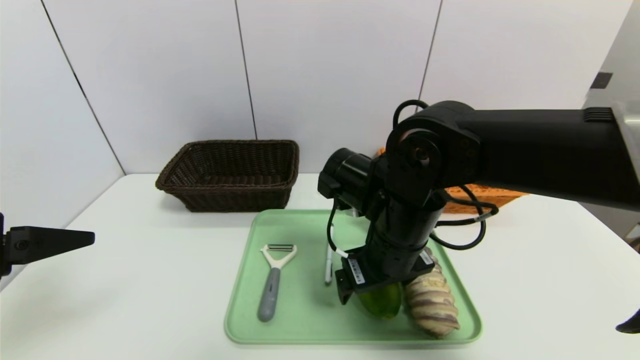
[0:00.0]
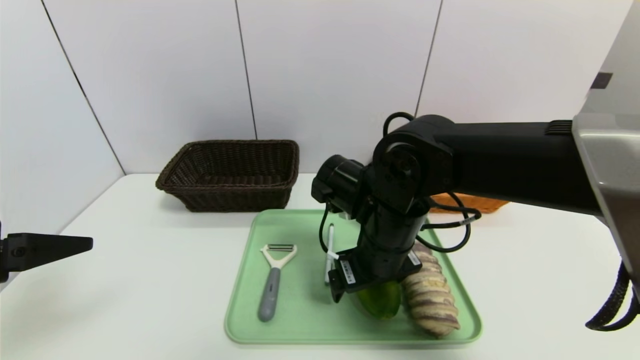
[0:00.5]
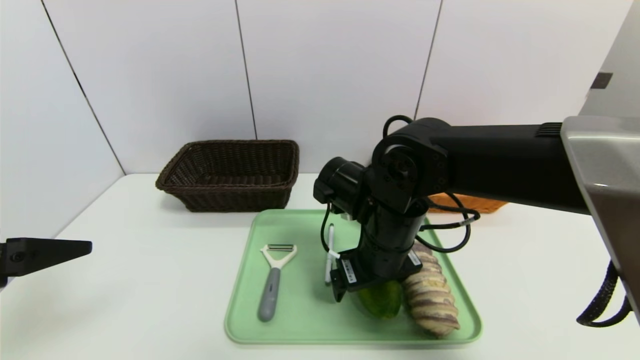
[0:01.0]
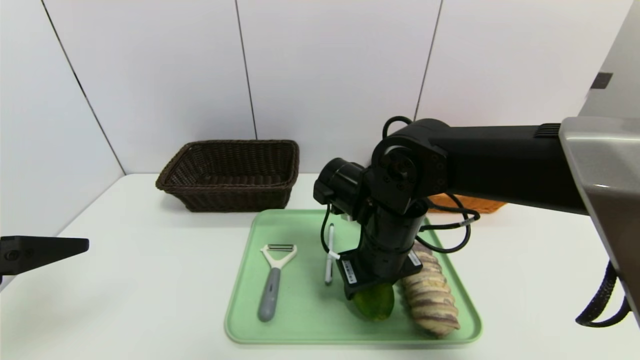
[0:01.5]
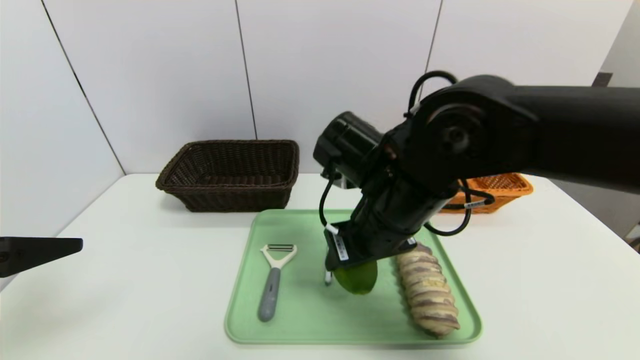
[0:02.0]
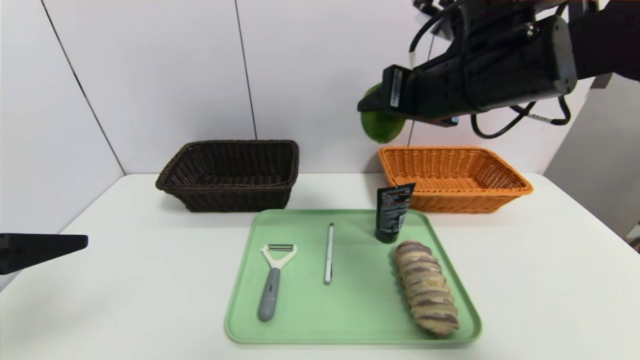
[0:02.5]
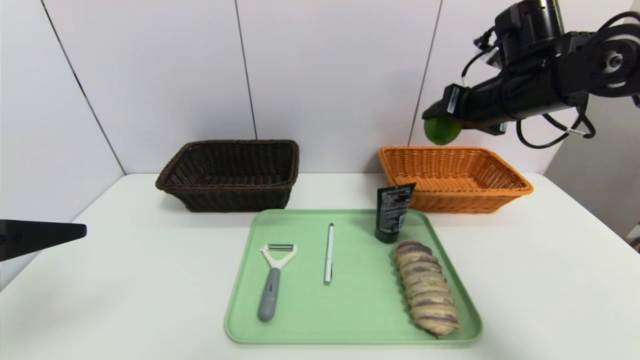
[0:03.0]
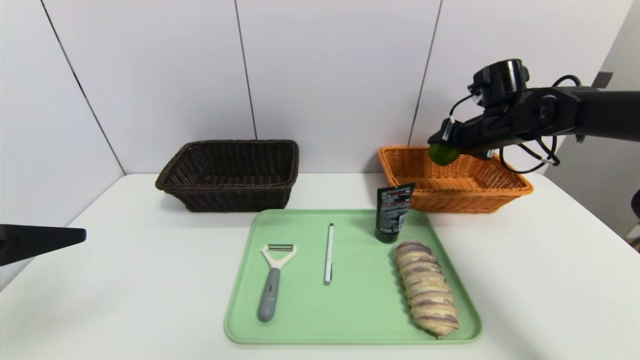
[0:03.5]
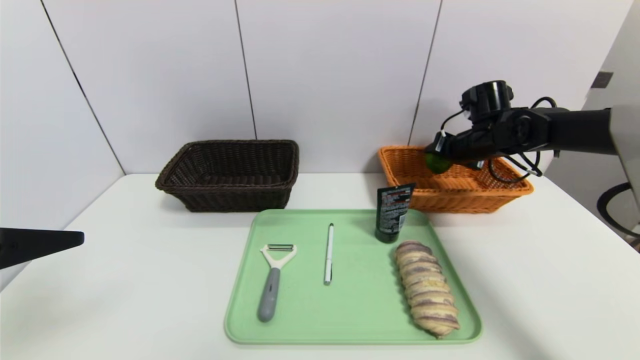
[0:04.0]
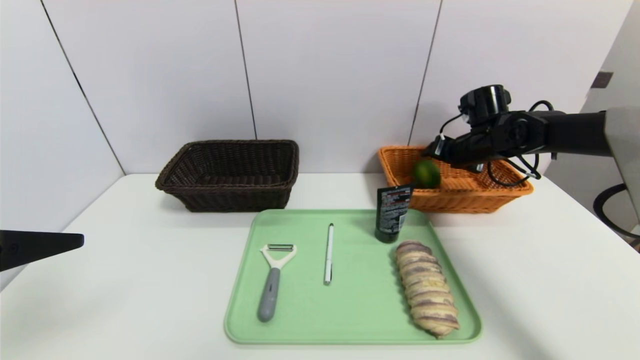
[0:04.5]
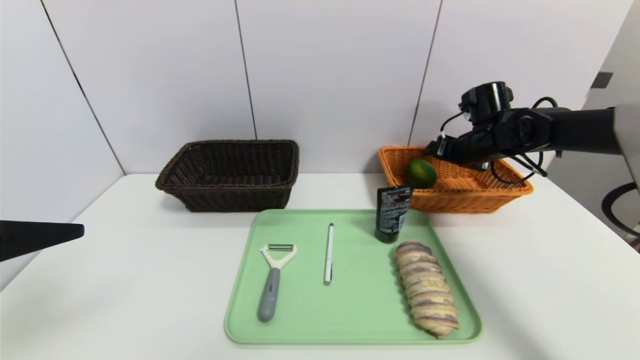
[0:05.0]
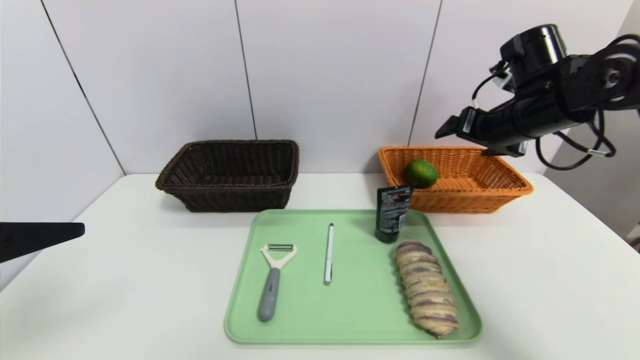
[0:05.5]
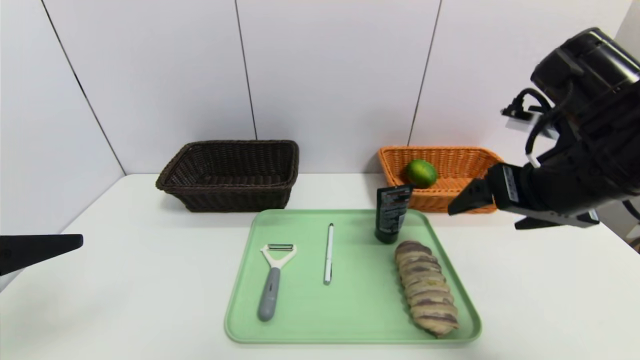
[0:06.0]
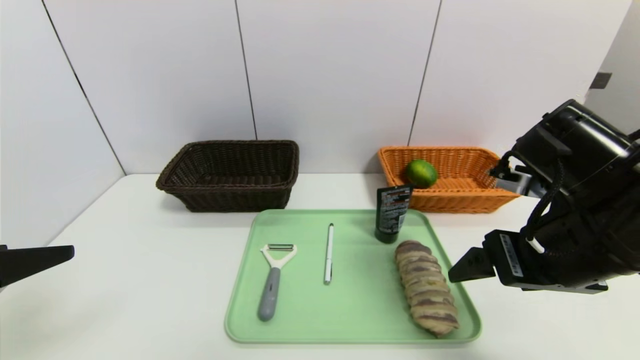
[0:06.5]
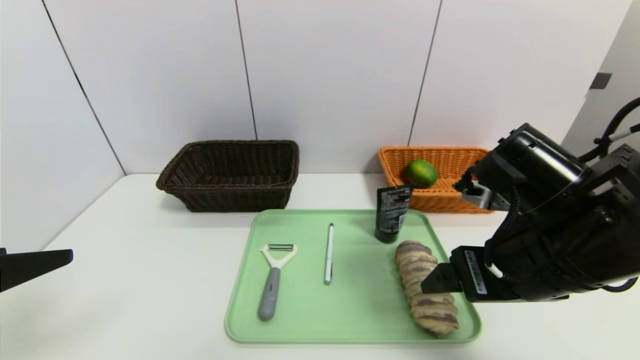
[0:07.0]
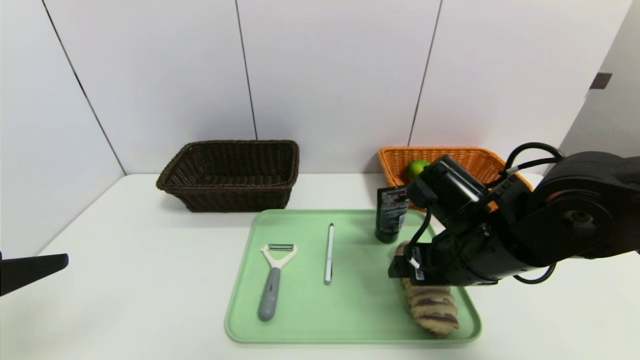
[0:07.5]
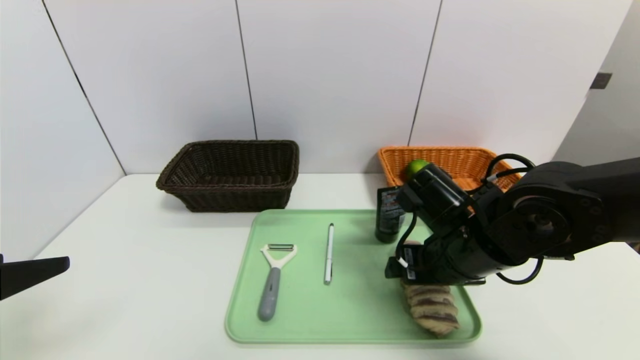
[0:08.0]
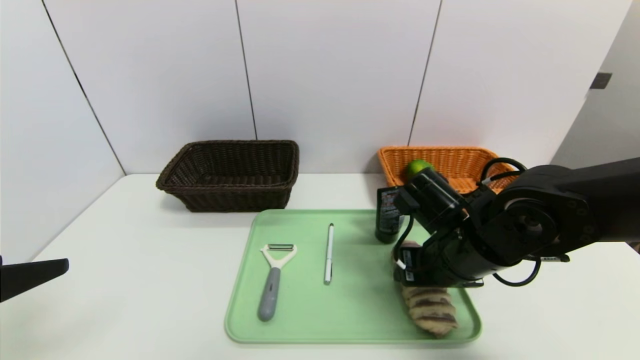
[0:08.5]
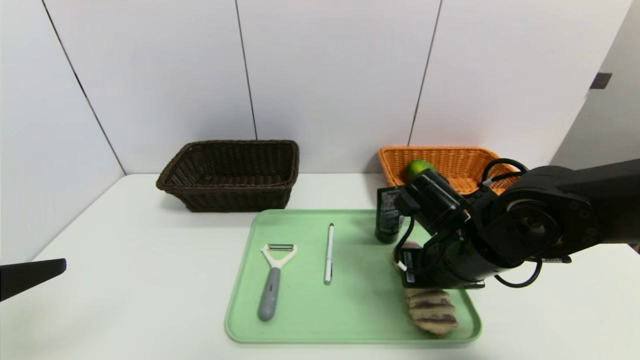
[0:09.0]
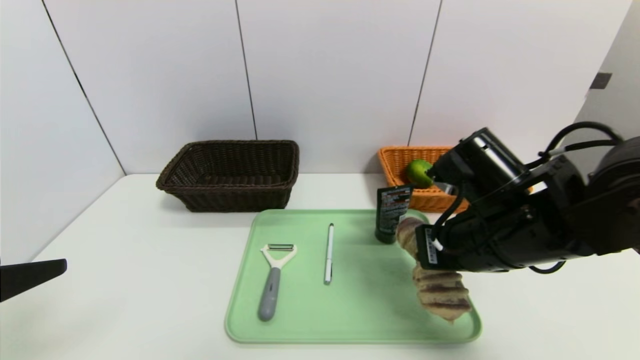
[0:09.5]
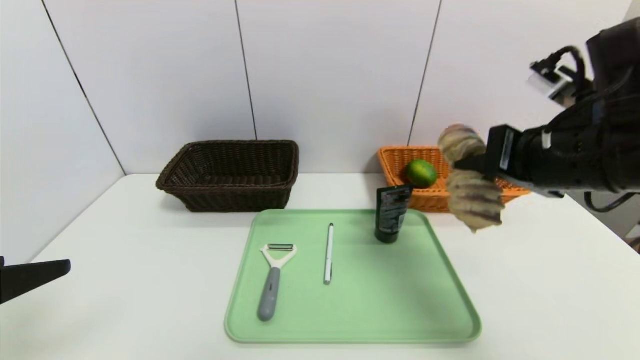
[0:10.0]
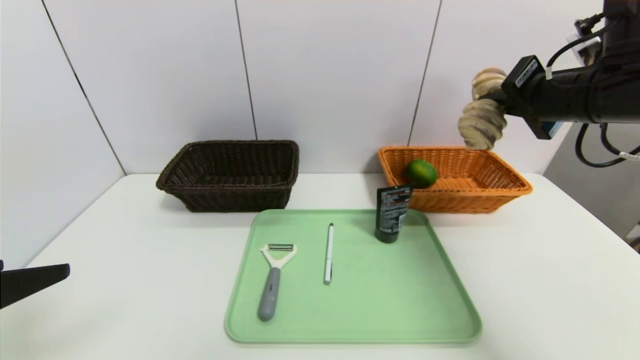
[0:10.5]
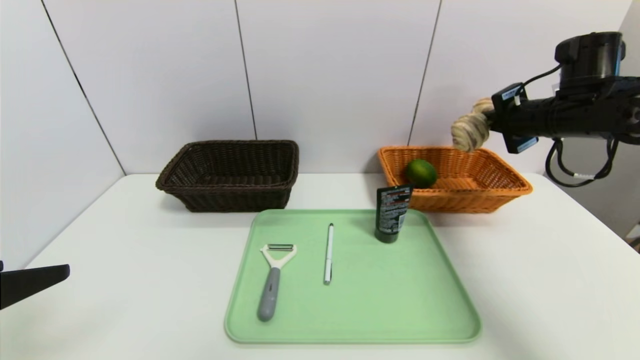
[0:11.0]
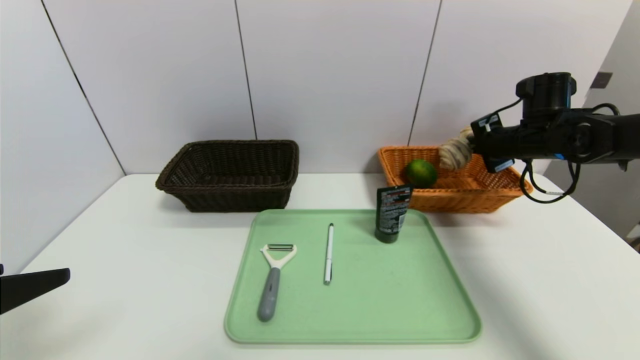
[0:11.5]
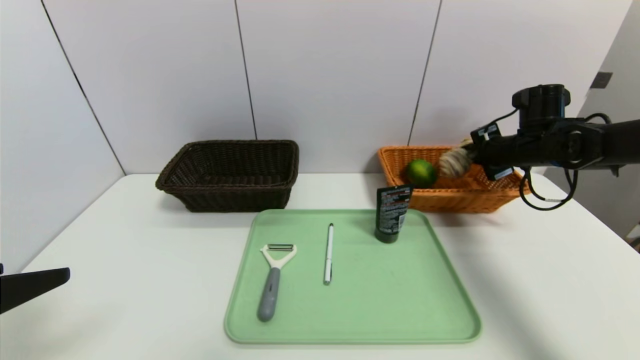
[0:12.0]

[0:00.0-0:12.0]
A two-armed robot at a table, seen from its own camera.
Task of the whole recording: place the food in the right basket with the right gripper, and place the non food items in the left basket with the left gripper.
Step, 0:00.0 to 0:05.0: Grasp the lime and put it in the right basket.
0:00.0 to 0:02.0: The right gripper closes up.
0:02.0 to 0:04.0: The right gripper heads to the right and forward, covering roughly 30 cm.
0:04.0 to 0:06.0: The right gripper heads backward, covering approximately 25 cm, and opens.
0:06.0 to 0:08.0: The right gripper shifts roughly 15 cm downward and to the left.
0:08.0 to 0:10.0: The right gripper goes some 15 cm upward and to the right, and closes up.
0:10.0 to 0:12.0: The right gripper moves forward, to the right and downward, some 25 cm.

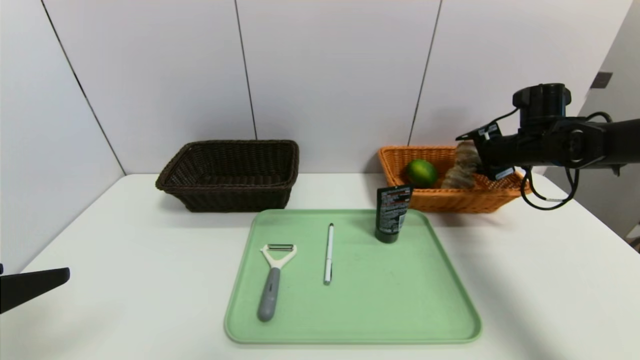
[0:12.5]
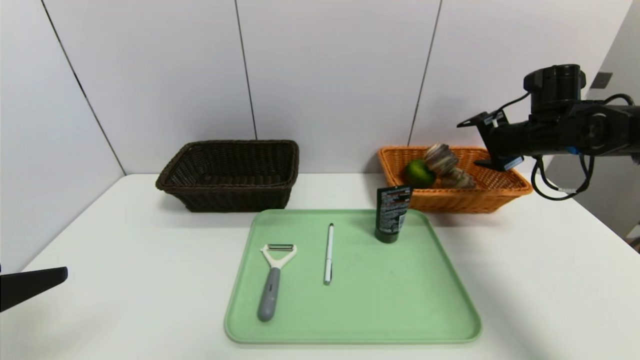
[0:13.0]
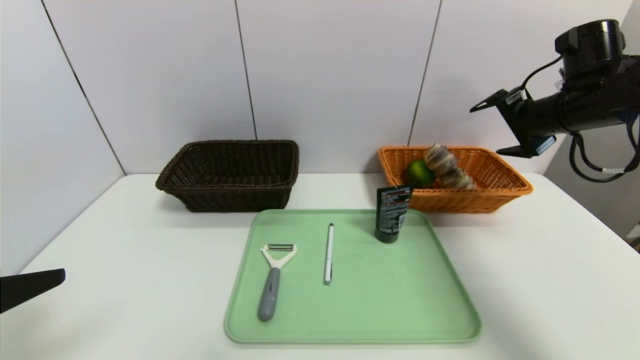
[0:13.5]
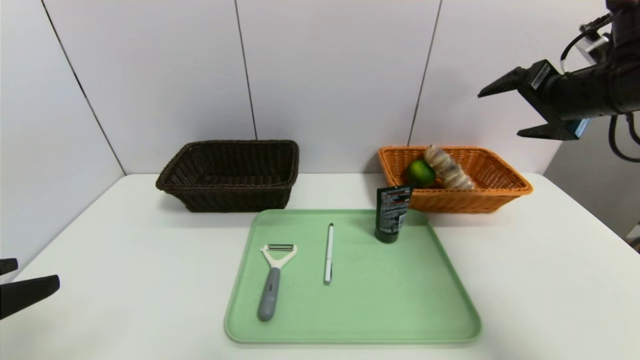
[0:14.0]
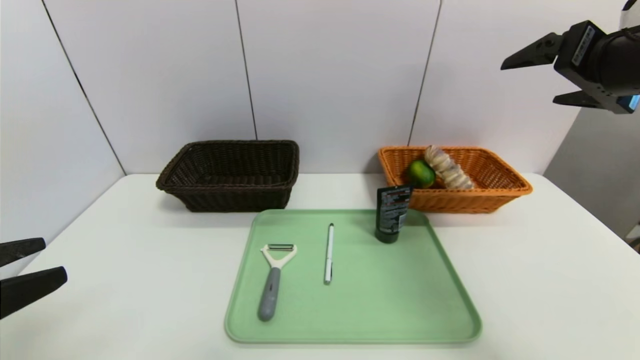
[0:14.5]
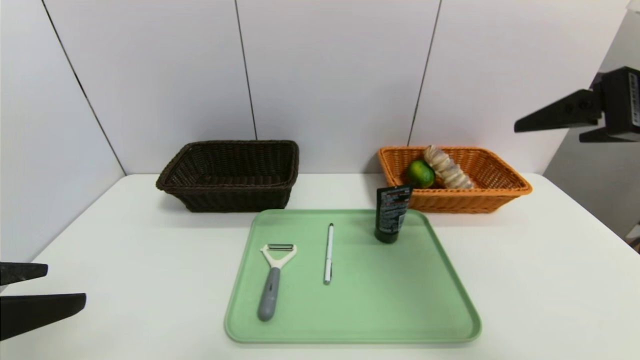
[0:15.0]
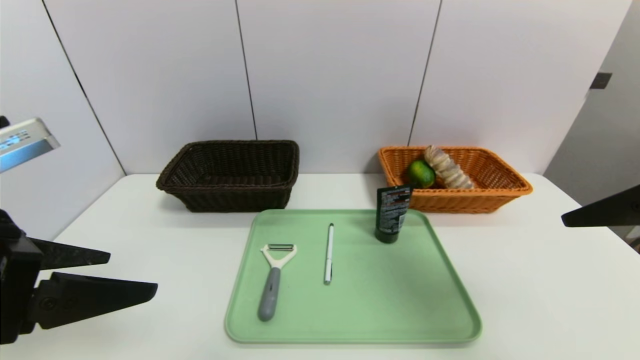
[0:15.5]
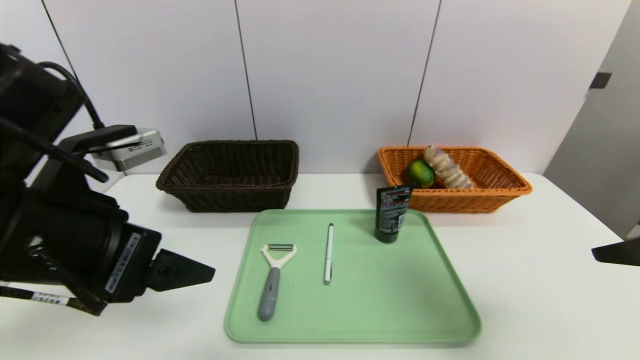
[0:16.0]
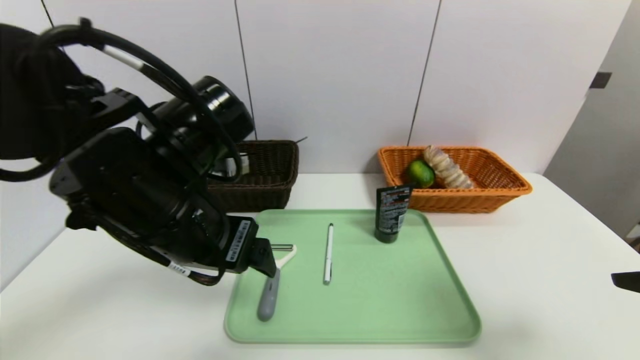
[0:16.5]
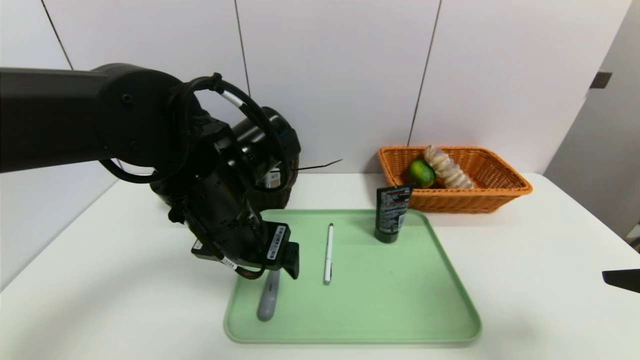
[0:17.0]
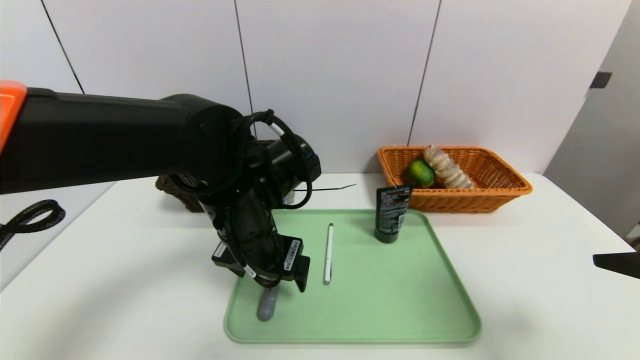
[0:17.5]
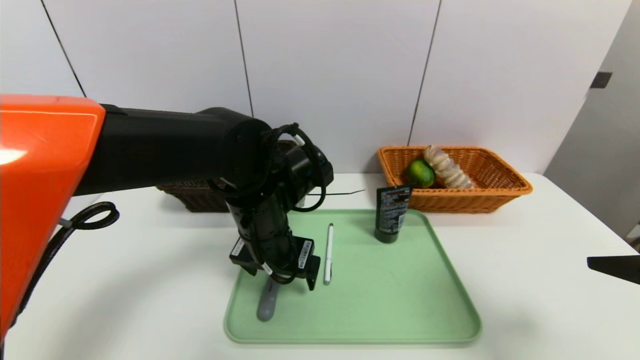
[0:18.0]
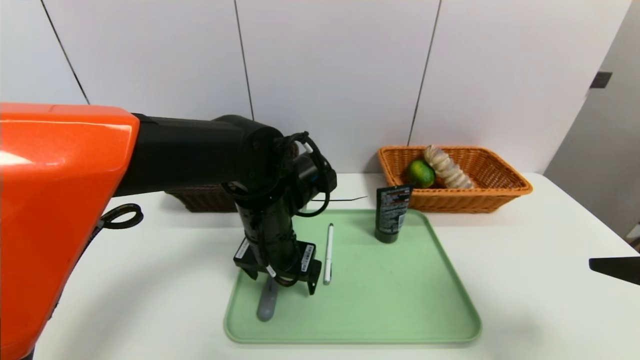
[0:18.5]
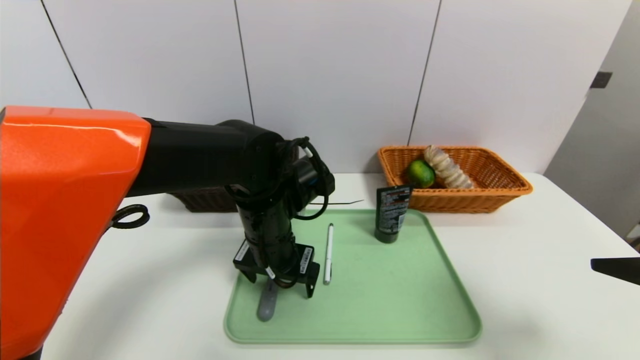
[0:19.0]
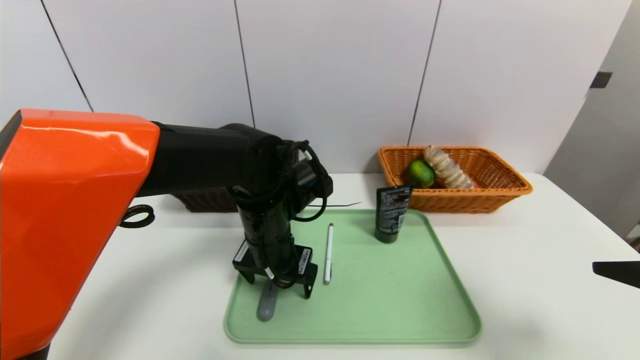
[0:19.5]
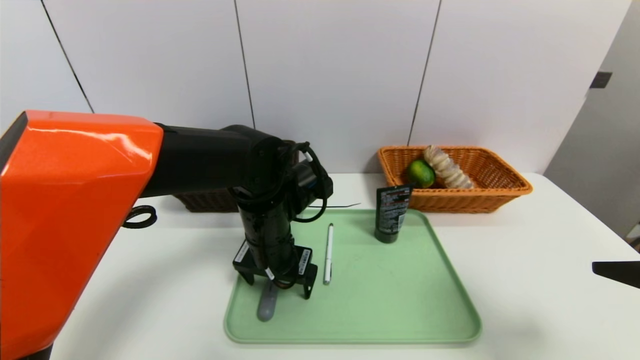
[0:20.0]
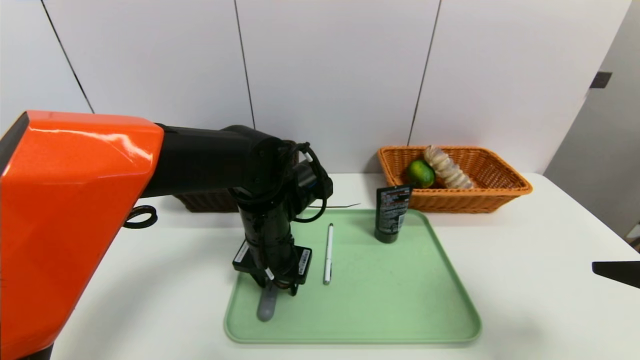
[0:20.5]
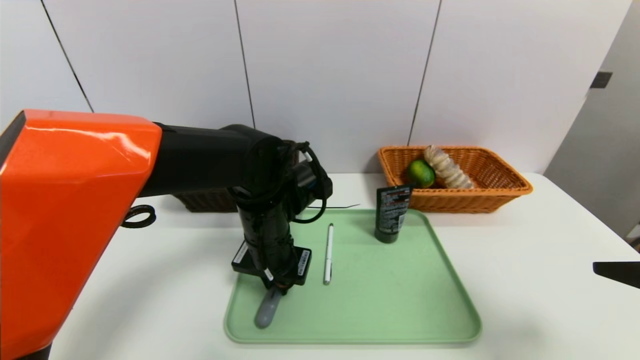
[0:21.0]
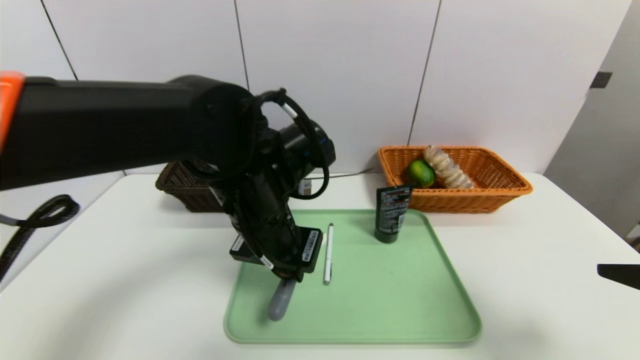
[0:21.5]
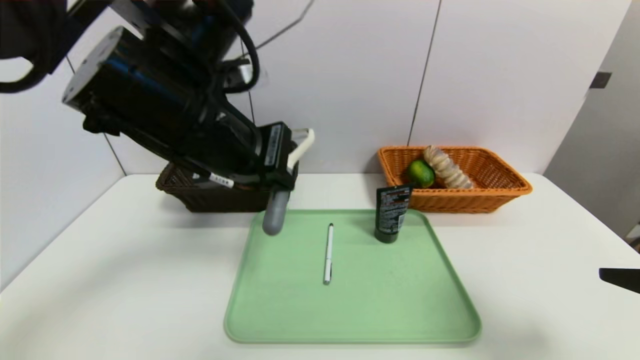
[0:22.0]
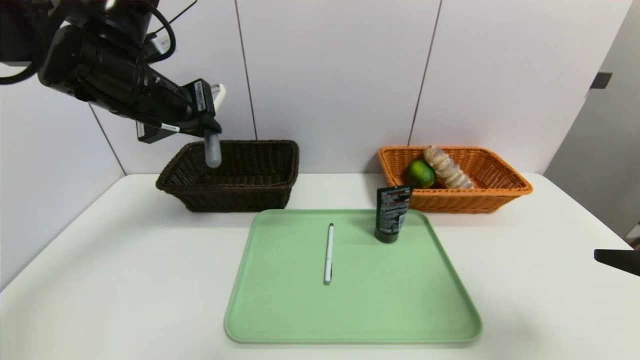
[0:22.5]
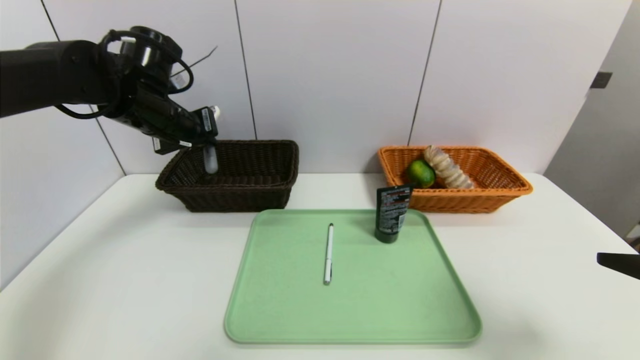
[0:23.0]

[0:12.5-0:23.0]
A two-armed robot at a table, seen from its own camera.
Task of the whole recording: place the food in the right basket with the right gripper, and place the non food items in the left basket with the left gripper.
0:12.5 to 0:14.5: The right gripper travels backward and upward by some 25 cm.
0:14.5 to 0:16.5: The left gripper shifts some 20 cm forward and to the right. The right gripper goes roughly 15 cm backward and downward.
0:16.5 to 0:19.0: The left gripper heads downward, forward and to the right, covering approximately 15 cm.
0:19.0 to 0:21.0: The left gripper closes its fingers.
0:21.0 to 0:23.0: The left gripper shifts approximately 25 cm to the left, upward and forward.
